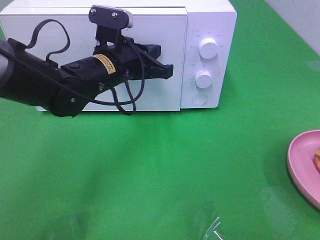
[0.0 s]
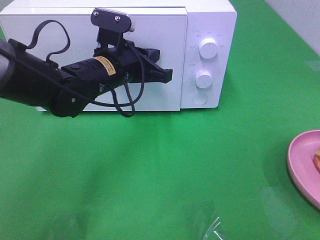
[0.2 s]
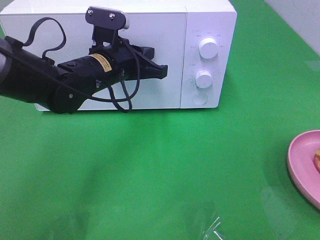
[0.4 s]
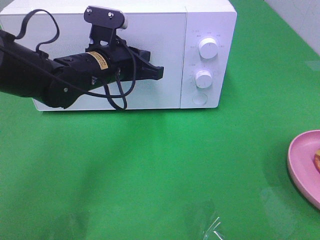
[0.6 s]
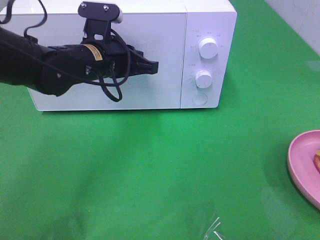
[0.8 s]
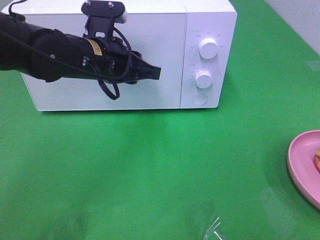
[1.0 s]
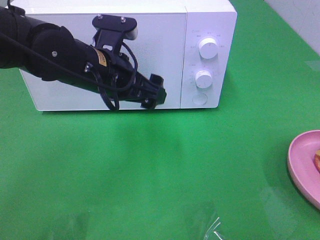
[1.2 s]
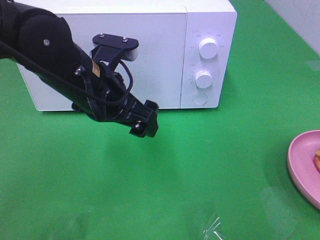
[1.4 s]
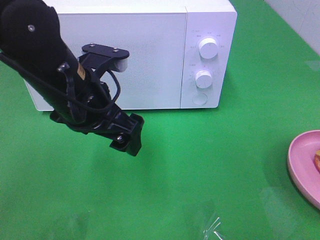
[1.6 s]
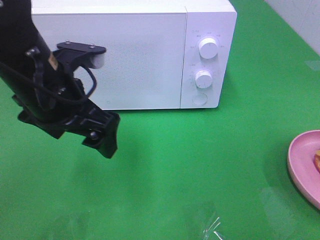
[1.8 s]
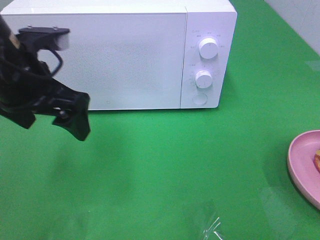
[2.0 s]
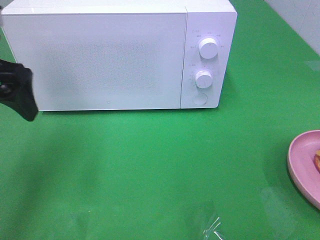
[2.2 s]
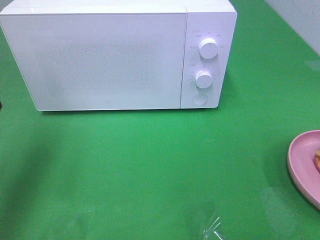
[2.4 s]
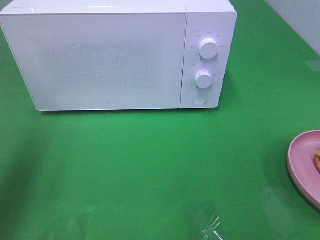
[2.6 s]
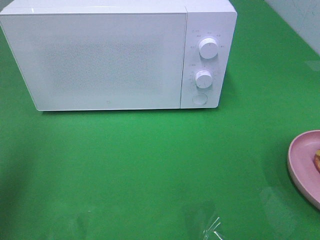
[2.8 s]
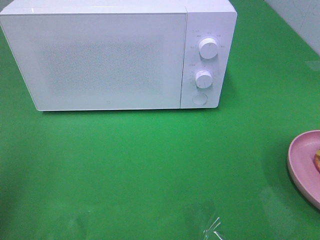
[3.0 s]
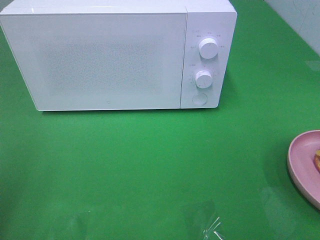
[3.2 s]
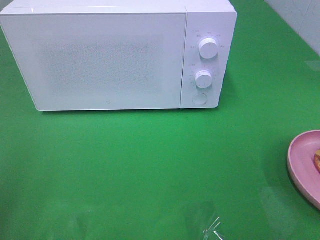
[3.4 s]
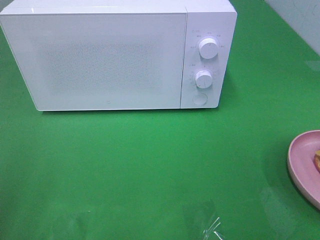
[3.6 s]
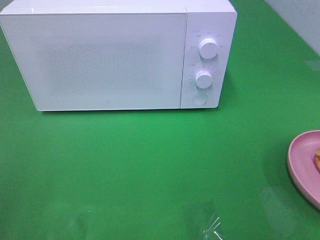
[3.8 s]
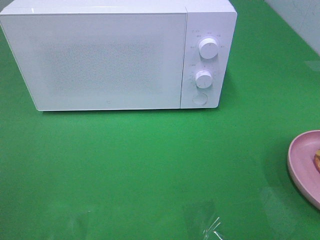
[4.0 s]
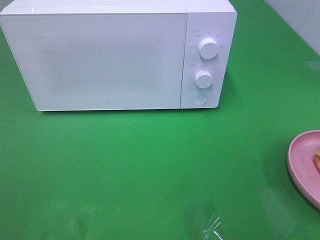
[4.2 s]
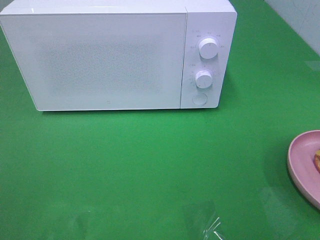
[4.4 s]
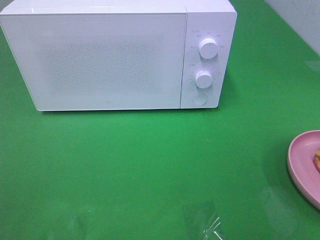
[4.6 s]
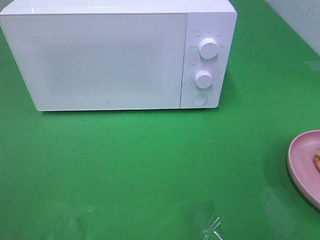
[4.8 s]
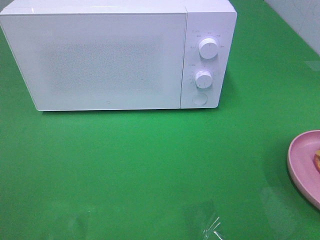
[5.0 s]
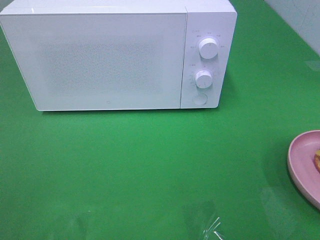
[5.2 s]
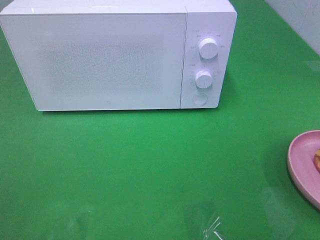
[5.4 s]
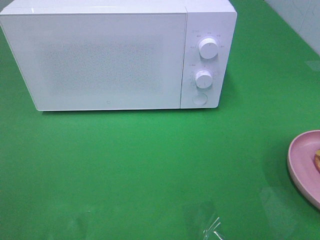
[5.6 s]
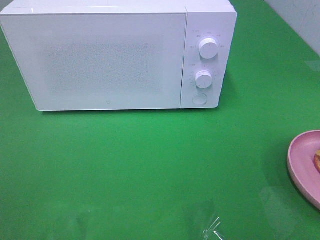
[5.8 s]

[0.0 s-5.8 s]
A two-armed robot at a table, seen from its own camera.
Task of the whole recording: Heat the burger.
0.0 to 1.4 s: The left gripper travels backward by about 10 cm, and opens up.
1.4 to 2.8 s: The left gripper shifts approximately 25 cm to the left and backward.
2.8 to 4.4 s: The left gripper travels backward by approximately 15 cm.
4.4 to 5.8 s: The two grippers keep their place.

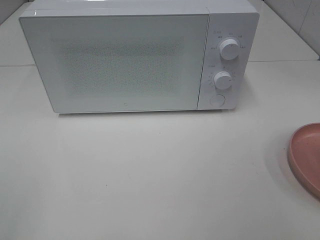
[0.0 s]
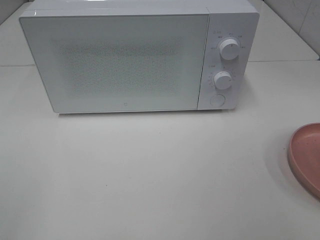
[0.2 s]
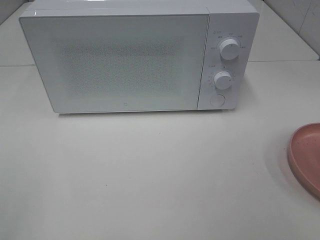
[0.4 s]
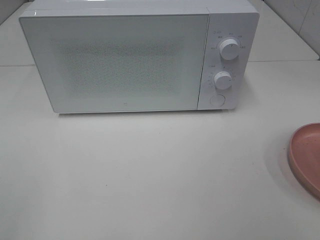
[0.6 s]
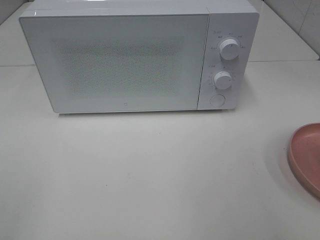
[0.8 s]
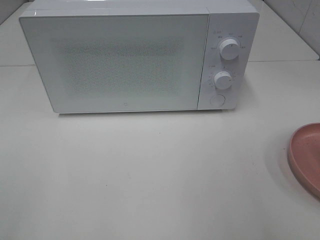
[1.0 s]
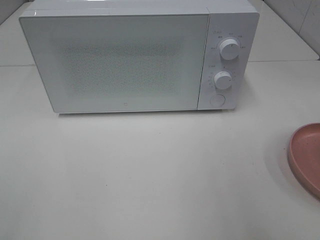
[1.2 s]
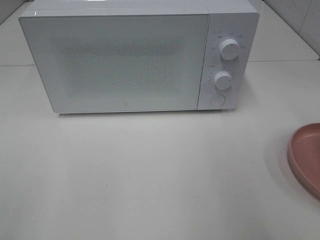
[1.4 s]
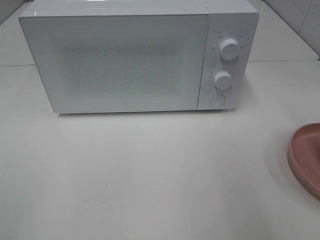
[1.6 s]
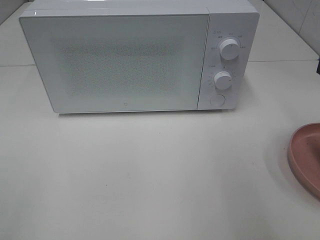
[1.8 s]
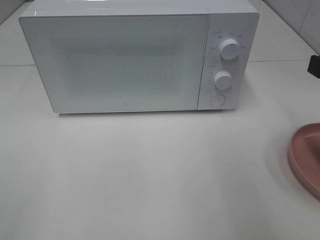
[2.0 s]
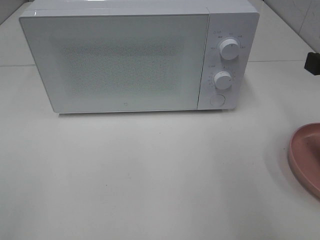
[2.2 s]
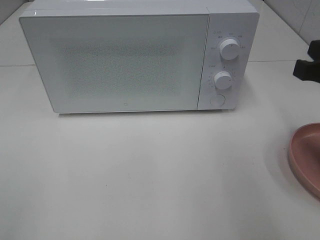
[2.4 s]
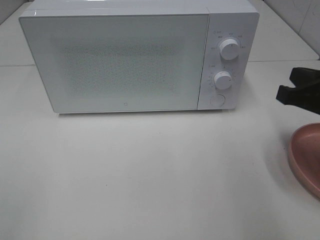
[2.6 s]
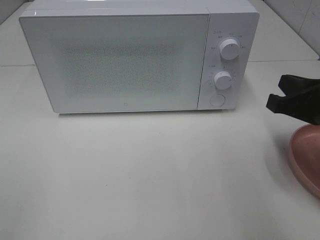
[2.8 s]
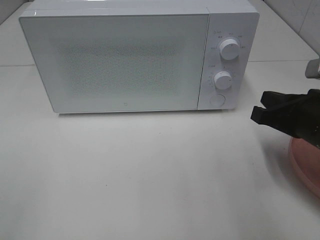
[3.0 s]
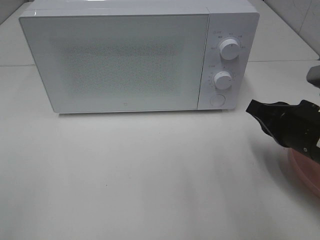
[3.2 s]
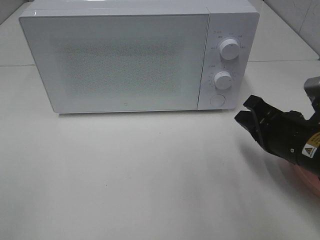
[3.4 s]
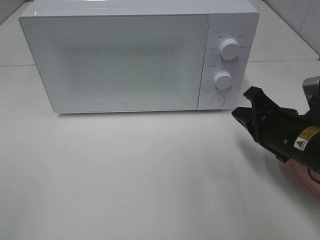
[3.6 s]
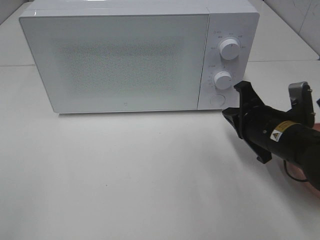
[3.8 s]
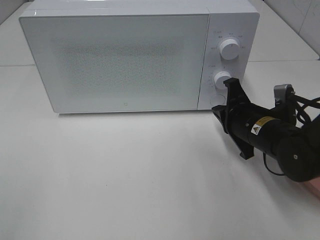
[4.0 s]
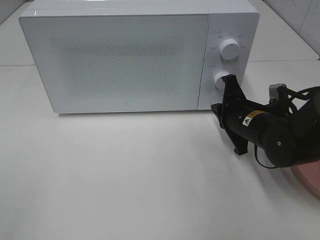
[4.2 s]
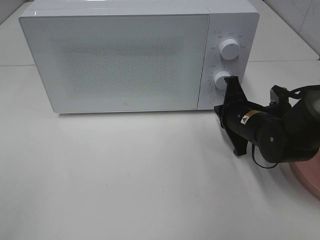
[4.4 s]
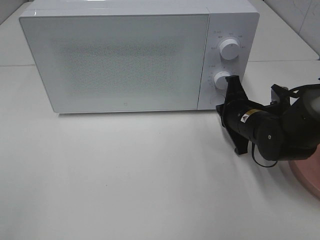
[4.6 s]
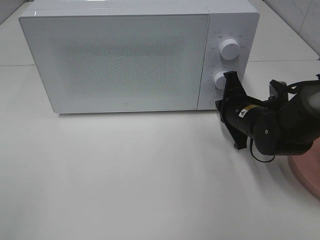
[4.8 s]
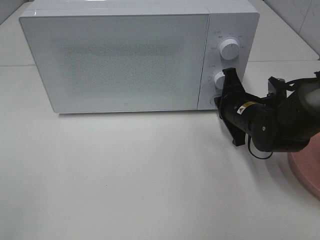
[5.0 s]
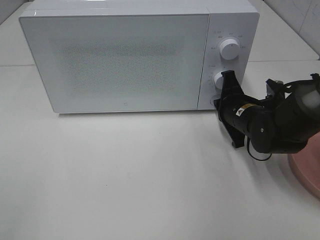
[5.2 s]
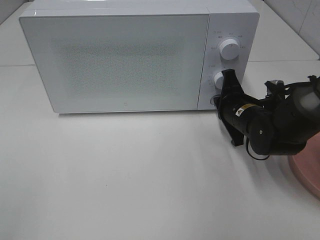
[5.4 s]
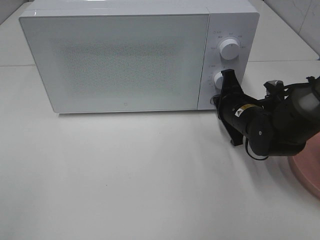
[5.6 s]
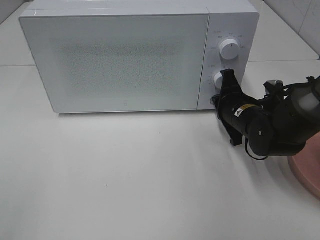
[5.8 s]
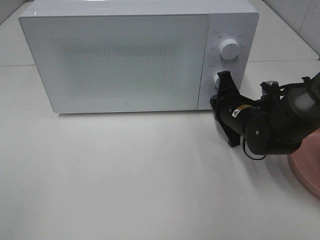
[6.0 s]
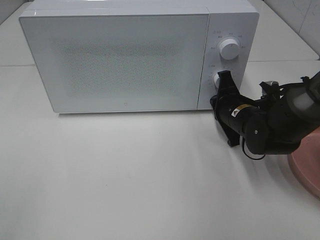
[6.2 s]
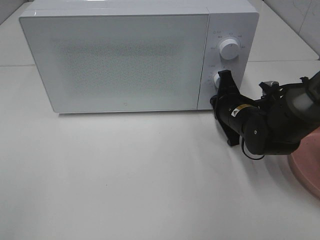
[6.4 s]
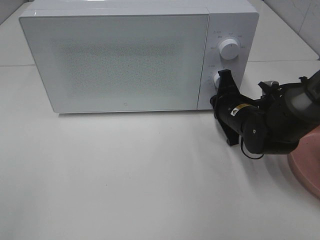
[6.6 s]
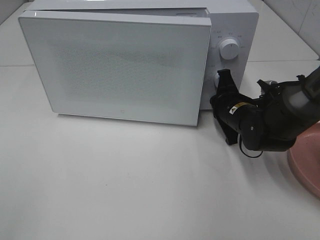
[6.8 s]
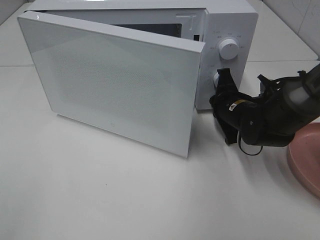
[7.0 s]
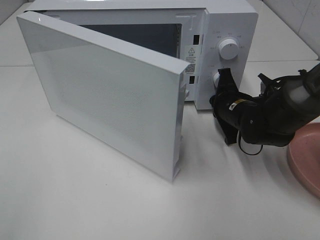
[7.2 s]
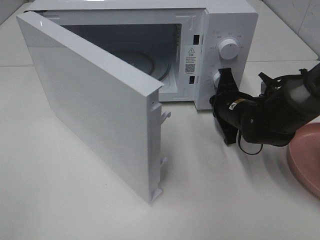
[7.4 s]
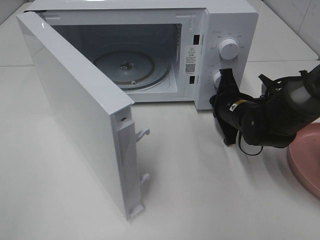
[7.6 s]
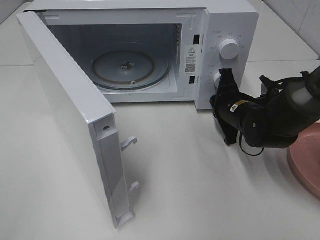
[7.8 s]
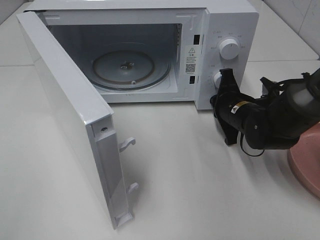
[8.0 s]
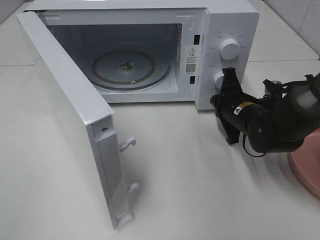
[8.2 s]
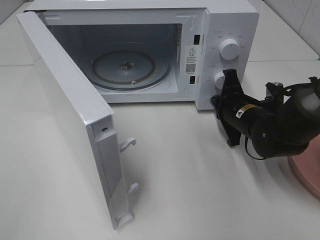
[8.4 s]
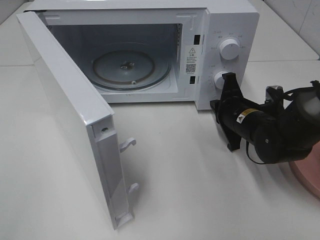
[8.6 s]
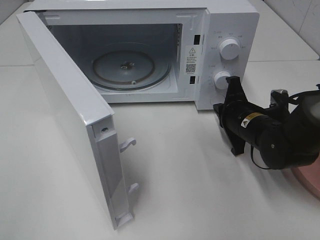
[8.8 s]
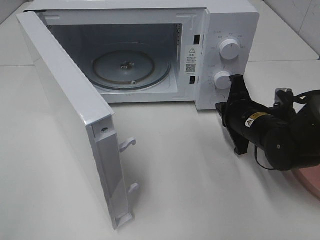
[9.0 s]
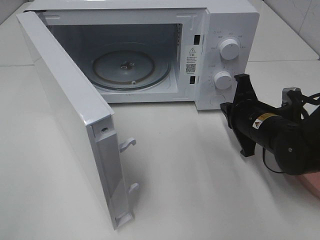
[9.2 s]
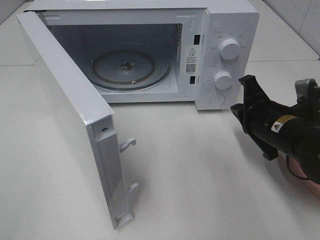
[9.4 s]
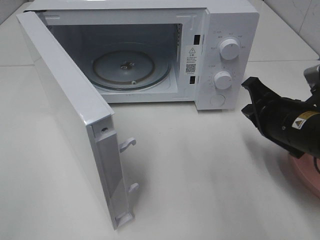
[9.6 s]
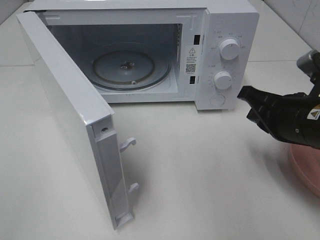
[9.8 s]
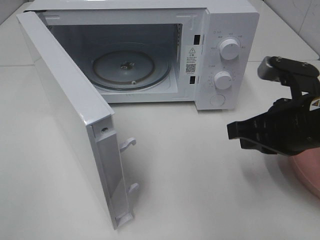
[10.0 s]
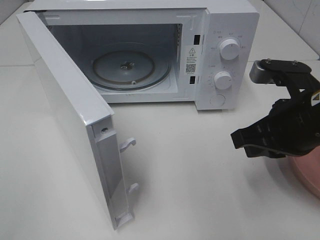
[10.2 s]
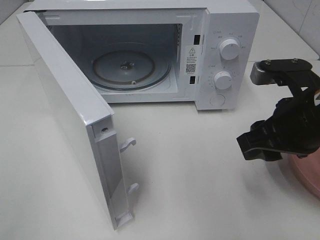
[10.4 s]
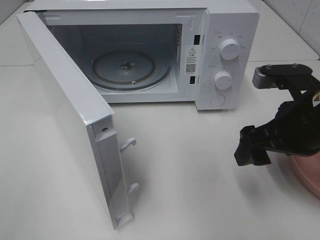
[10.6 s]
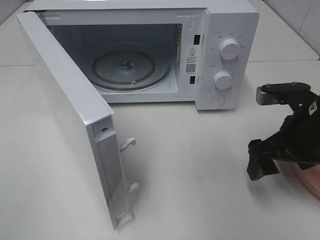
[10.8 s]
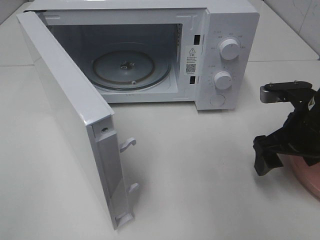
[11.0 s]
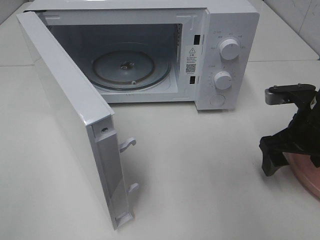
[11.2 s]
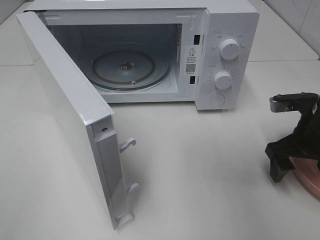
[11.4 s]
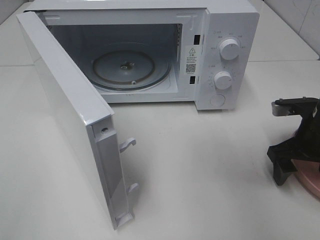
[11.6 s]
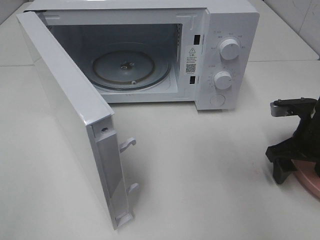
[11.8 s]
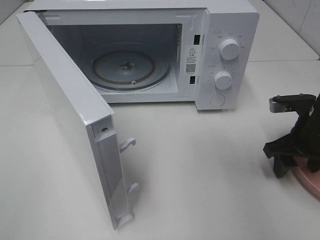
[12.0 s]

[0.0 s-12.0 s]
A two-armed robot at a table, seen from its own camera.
Task of the whole recording: Heat the burger.
Step, 0.0 to 8.4 s: Right hand: press the switch.
1.6 to 3.0 s: The right gripper travels downward by roughly 10 cm.
3.0 to 4.4 s: The right gripper heads forward, downward and to the left, covering some 15 cm.
4.4 to 6.0 s: The grippers stay close to where they were, moving slightly.
7.6 to 9.0 s: The grippers move only a little.
9.0 to 10.4 s: The right gripper is displaced upward and backward by roughly 15 cm, and opens.
10.4 to 12.0 s: The right gripper shifts approximately 15 cm downward, to the right and forward.

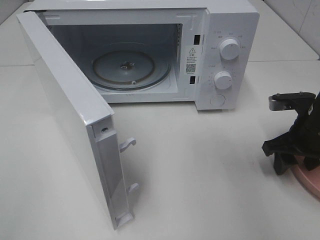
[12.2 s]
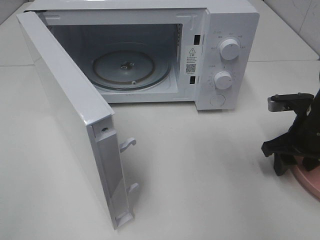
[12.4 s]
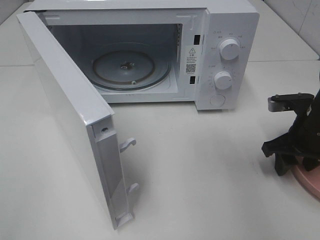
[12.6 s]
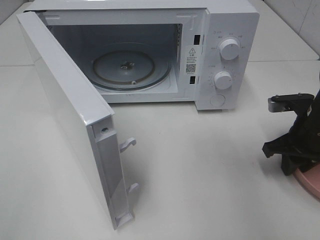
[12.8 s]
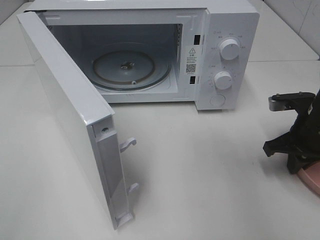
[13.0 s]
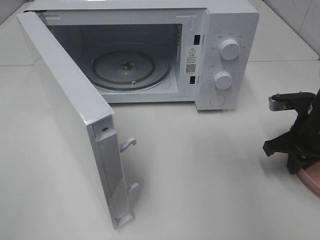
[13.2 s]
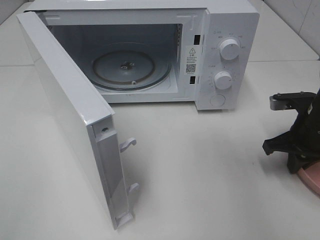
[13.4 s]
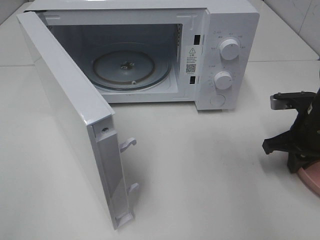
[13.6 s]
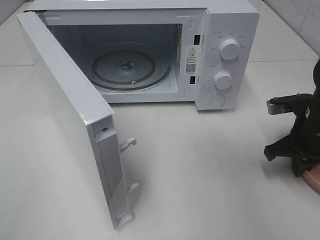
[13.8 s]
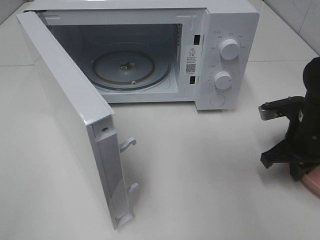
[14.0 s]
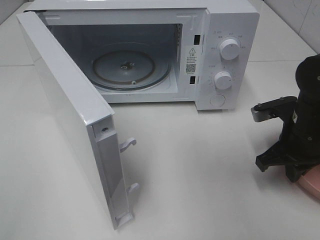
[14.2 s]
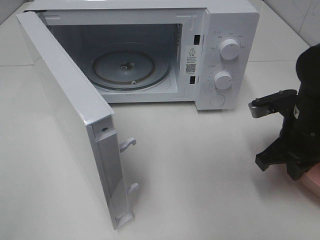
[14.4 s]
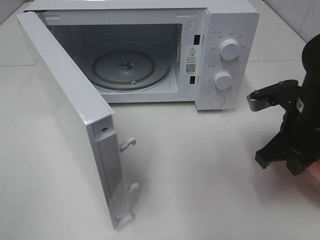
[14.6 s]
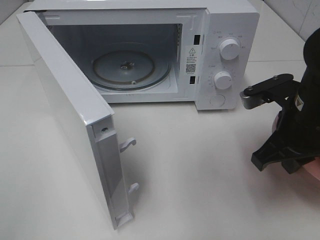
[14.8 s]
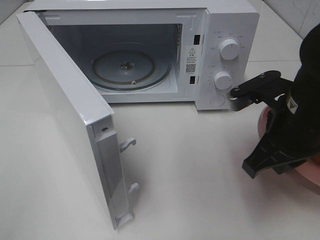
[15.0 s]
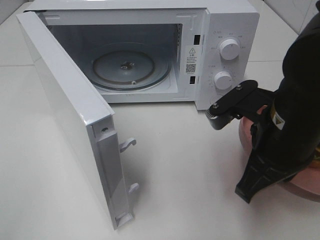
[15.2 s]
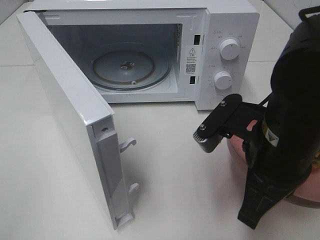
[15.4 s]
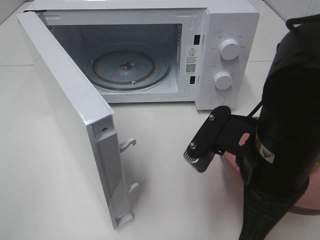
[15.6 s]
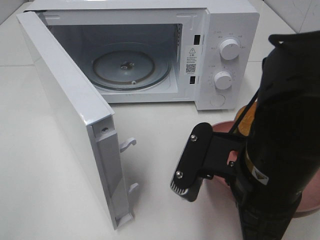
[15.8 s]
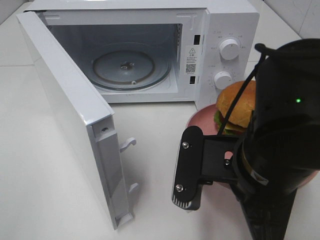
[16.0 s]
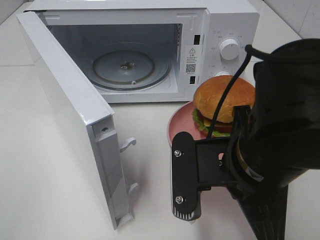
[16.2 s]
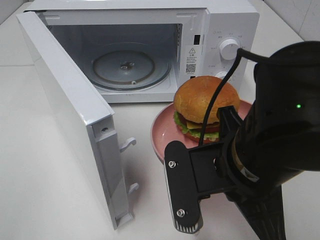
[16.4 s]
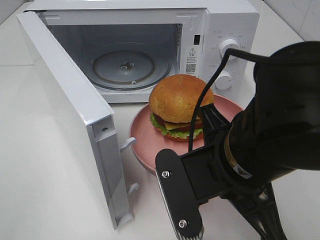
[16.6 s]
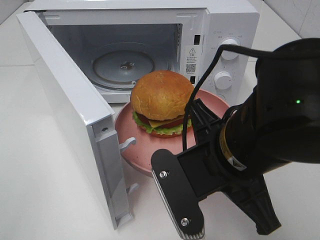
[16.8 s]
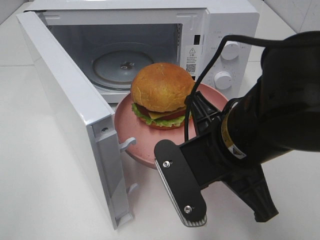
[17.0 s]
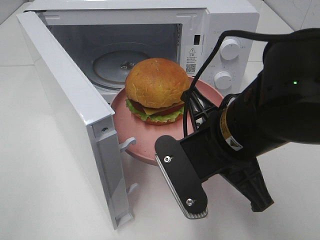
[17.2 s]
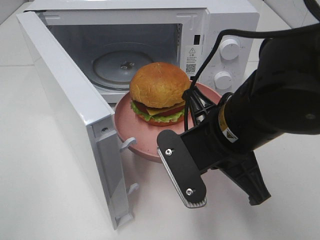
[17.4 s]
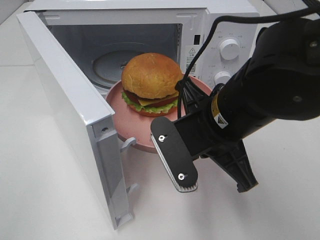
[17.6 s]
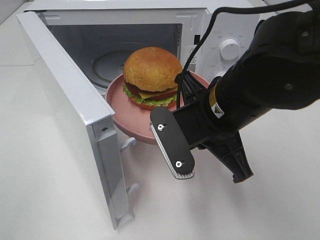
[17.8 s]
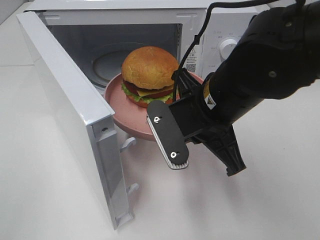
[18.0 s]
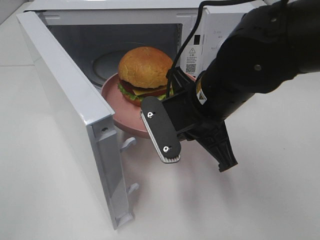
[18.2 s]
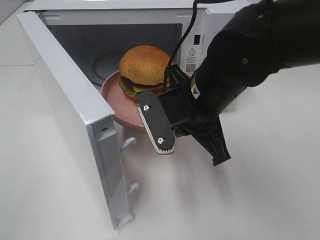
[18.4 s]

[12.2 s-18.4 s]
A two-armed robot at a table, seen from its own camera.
Task of the whole recording: Heat the burger.
12.2 to 13.8 s: The right gripper closes its fingers.
13.8 to 15.4 s: The right gripper is displaced to the left, backward and upward by some 20 cm.
15.4 to 16.8 s: The right gripper shifts about 5 cm to the left.
16.8 to 18.4 s: The right gripper is displaced forward by some 10 cm.
